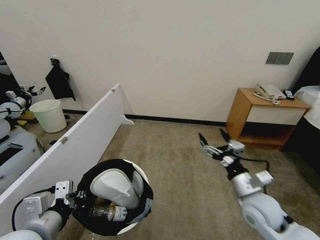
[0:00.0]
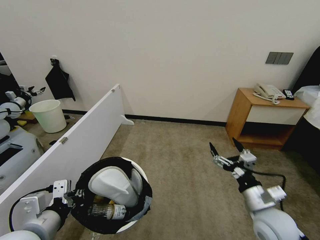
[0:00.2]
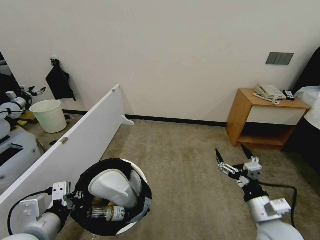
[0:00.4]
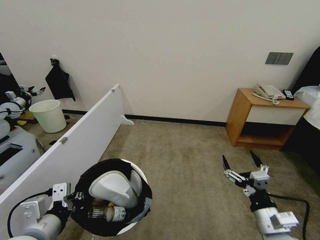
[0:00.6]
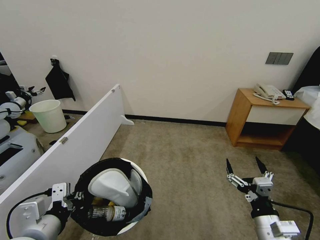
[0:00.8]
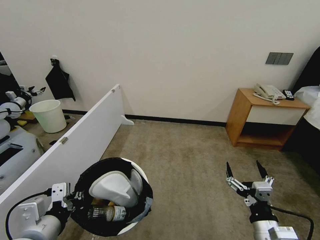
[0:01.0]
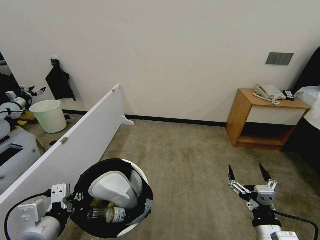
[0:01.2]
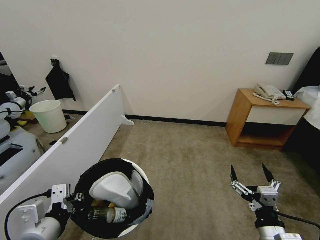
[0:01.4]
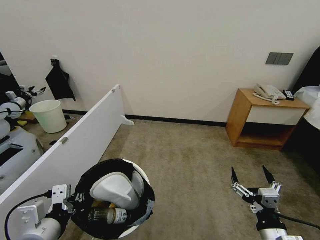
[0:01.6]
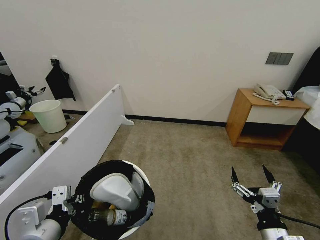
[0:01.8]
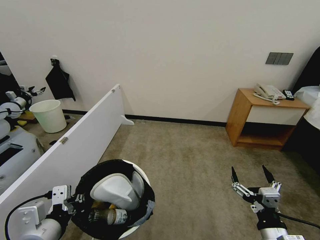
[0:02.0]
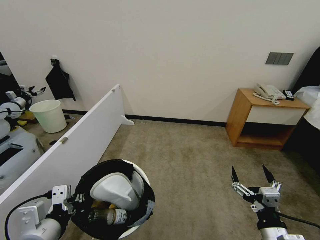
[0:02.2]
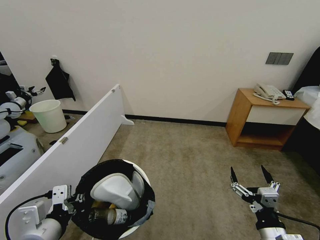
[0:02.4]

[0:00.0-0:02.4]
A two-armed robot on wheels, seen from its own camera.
Task of the whole recording: Pick up the trash bin, then pick up the garbage from the floor and place it into the trash bin.
0:00.0 to 0:01.2: The right gripper heads backward, covering roughly 15 cm.
0:01.2 to 0:02.4: Both grippers stay put.
